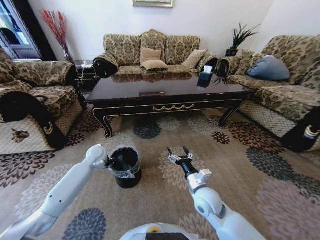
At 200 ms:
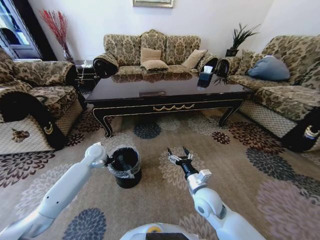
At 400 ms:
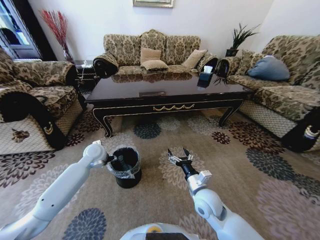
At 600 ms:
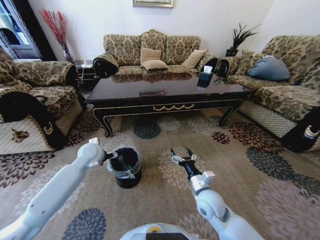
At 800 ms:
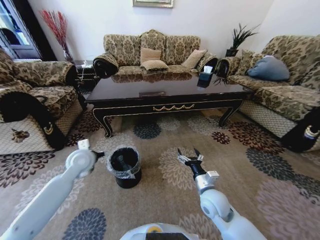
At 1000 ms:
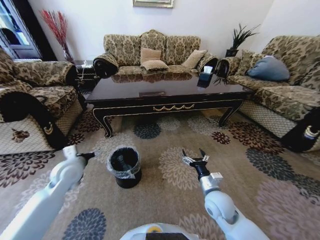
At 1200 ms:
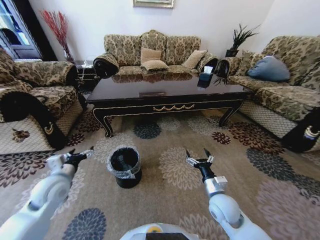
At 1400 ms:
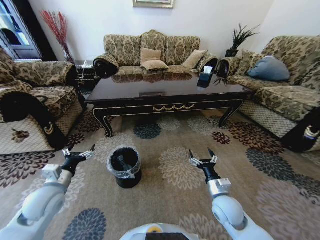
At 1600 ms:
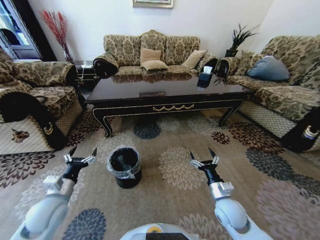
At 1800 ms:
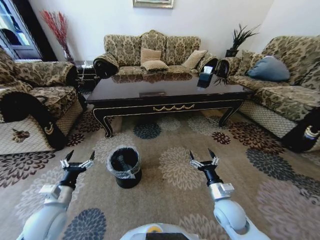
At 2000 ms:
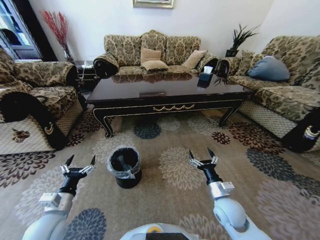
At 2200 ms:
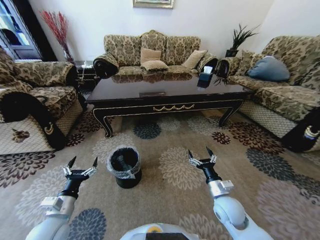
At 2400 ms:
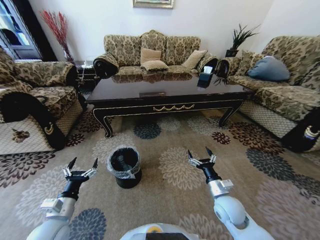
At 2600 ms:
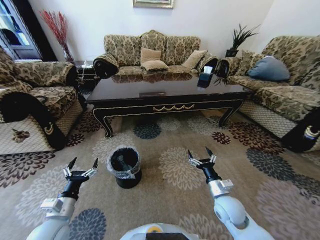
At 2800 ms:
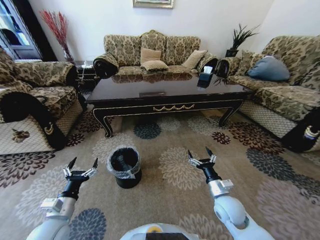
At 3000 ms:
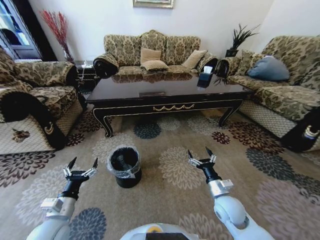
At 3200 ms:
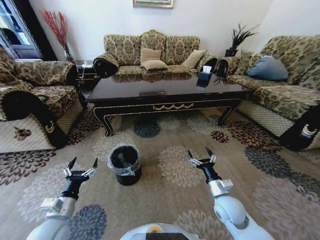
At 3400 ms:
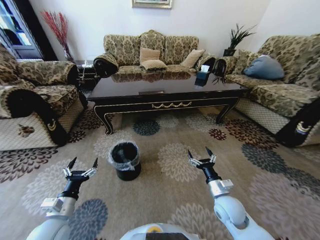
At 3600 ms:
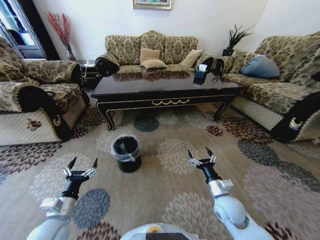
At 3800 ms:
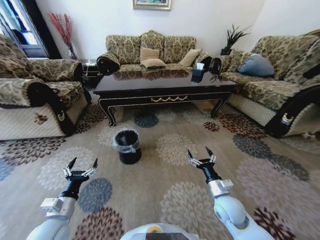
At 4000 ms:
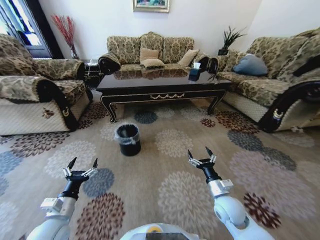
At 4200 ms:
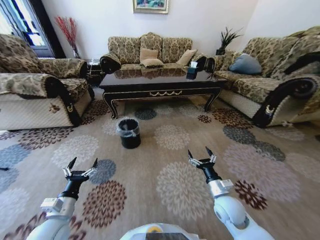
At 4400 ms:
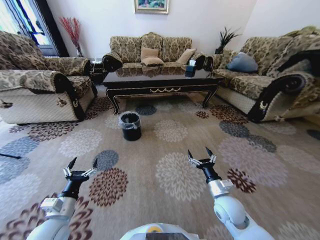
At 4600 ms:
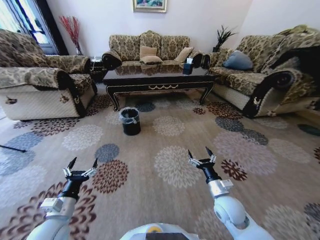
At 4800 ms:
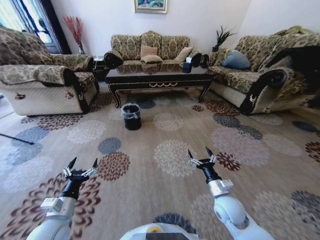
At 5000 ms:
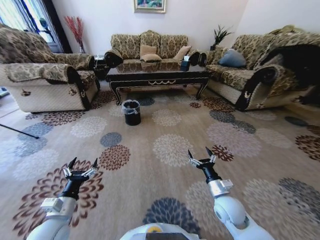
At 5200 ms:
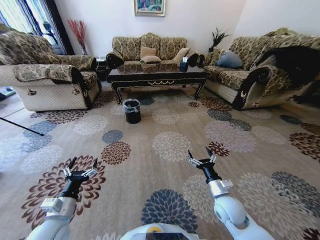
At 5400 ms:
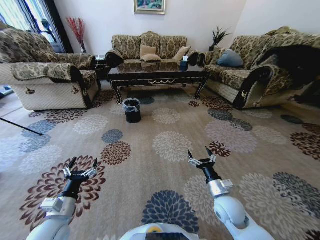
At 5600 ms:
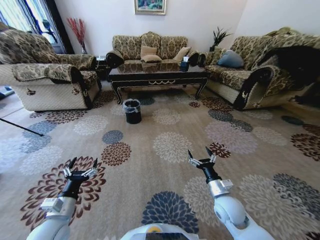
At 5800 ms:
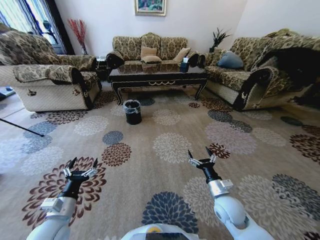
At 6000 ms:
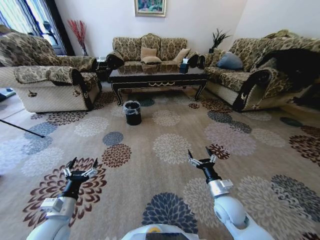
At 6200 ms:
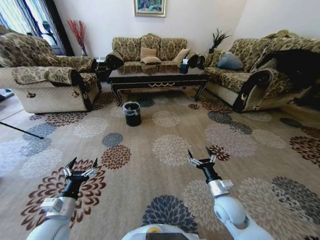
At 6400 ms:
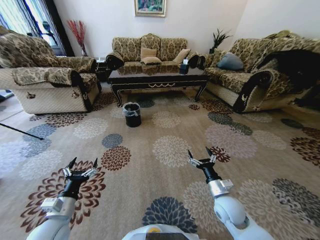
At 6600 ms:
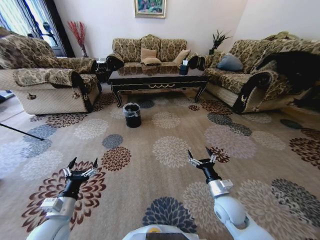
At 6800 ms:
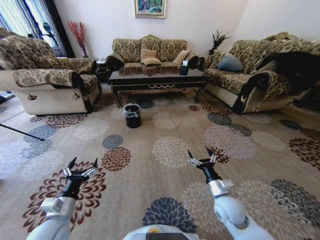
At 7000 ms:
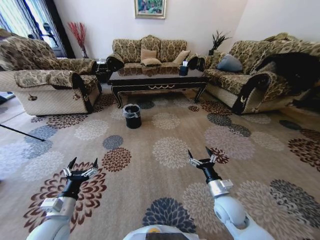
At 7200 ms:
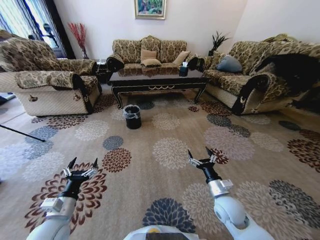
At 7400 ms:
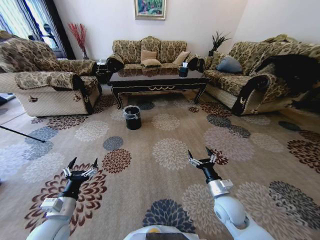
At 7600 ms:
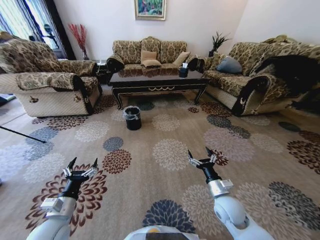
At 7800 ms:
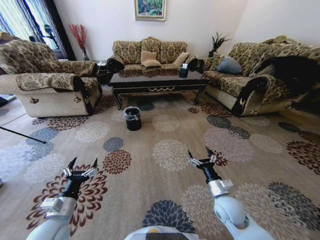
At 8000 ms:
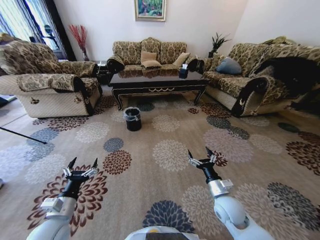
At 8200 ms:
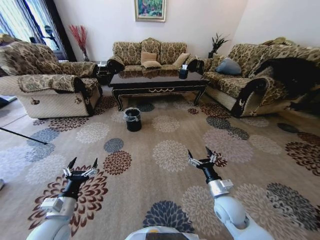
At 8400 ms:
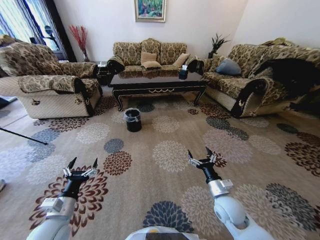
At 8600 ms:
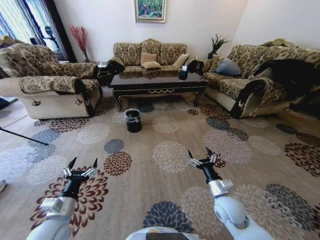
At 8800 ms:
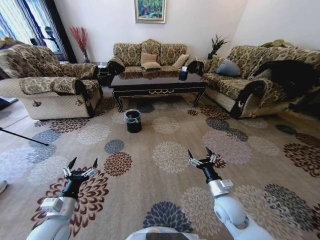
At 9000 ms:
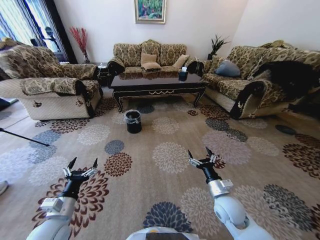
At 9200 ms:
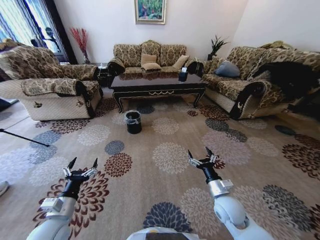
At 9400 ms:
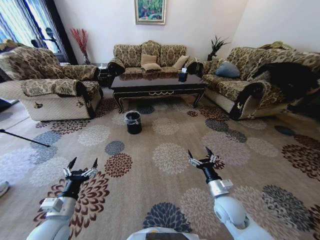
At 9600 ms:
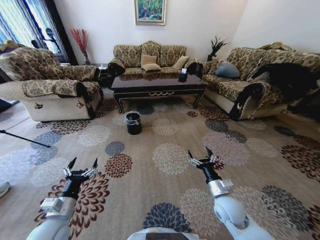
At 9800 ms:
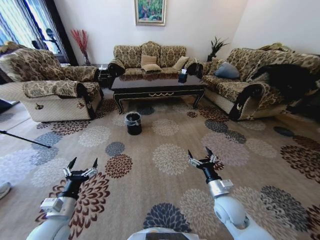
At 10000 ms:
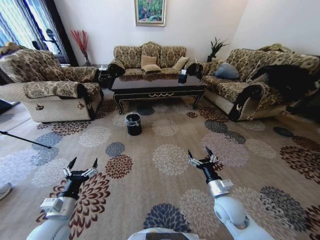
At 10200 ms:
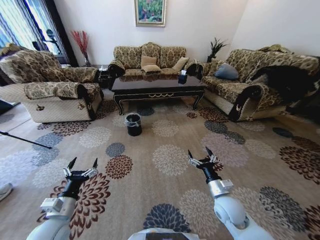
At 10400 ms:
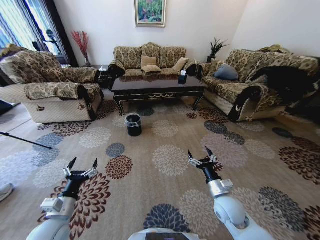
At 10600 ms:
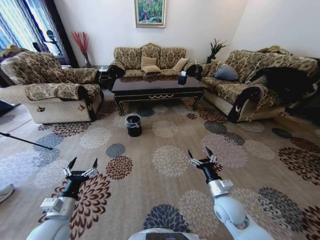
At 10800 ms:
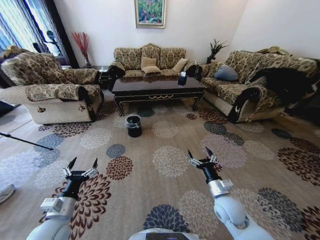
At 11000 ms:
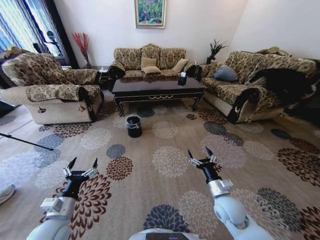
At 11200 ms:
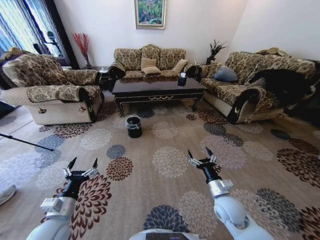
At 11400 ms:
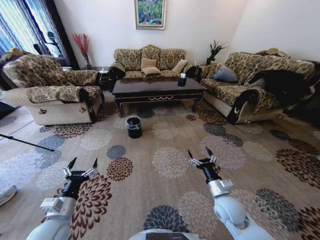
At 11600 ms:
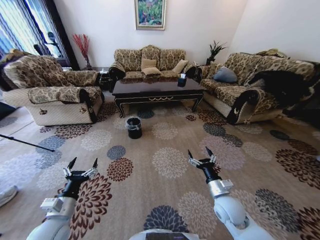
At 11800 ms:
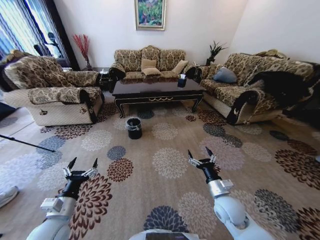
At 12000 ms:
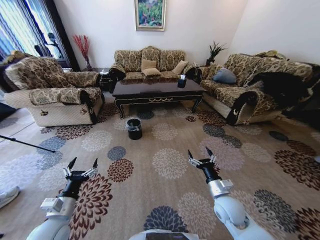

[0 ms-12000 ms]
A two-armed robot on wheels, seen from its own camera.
Task of the whole recording: Move to the front of the table and pick up the trash from the floor, then place it into the trash bin.
0 ms to 1600 ms: The left gripper goes about 25 cm backward, and opens up. Meanwhile the right gripper goes some 10 cm to the right.
1600 ms to 3000 ms: The left gripper heads backward, covering some 5 cm.

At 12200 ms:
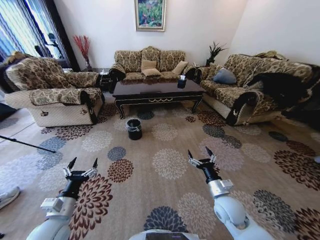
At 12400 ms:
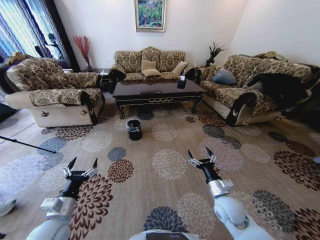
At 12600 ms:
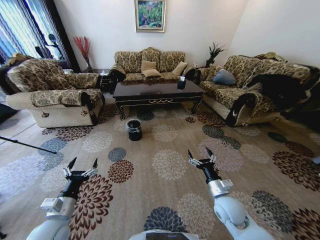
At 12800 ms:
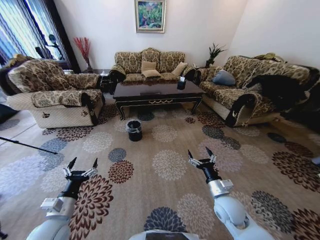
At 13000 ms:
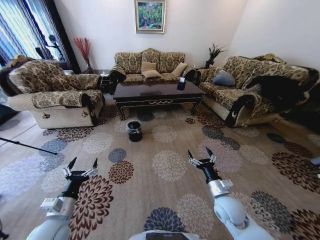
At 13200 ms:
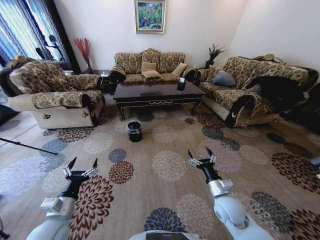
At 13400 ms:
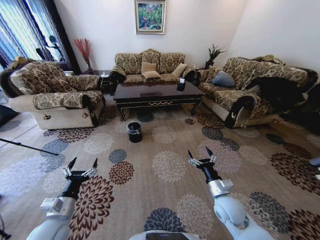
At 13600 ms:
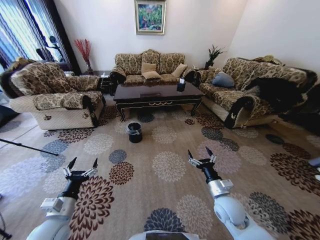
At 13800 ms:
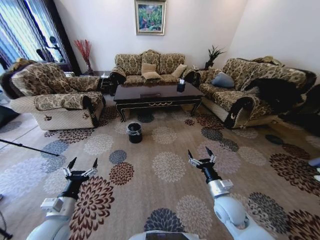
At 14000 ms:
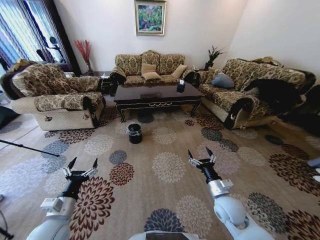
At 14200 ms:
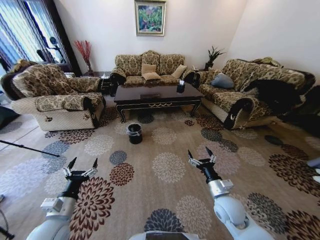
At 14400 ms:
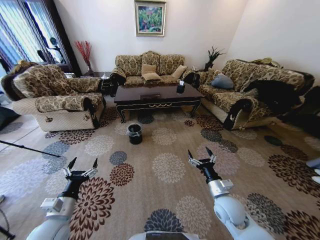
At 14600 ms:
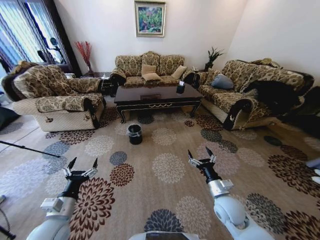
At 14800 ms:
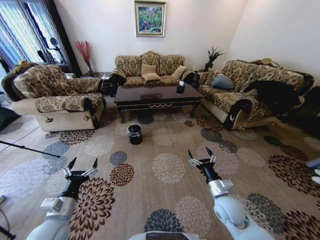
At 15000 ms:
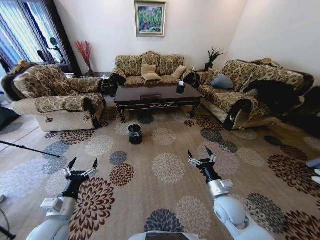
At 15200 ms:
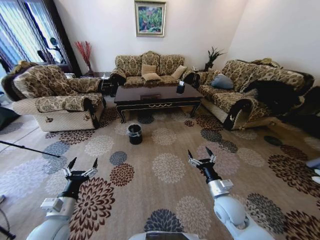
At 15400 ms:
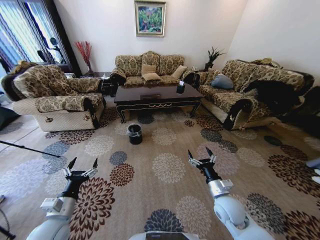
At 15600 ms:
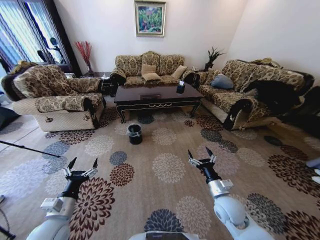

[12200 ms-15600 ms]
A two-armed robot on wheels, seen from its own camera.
Task of the whole recording: Move to the front of the table and pick up the trash from the floor, then place it into the trash bin.
13800 ms to 15600 ms: Both grippers stay about where they are.

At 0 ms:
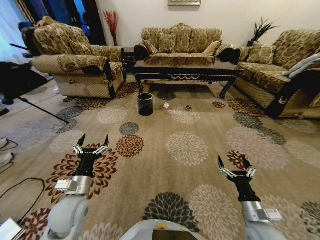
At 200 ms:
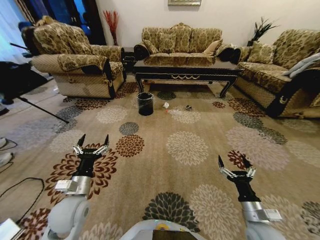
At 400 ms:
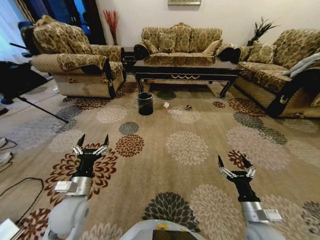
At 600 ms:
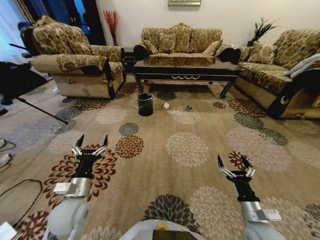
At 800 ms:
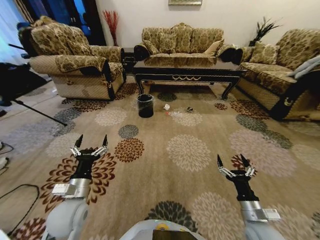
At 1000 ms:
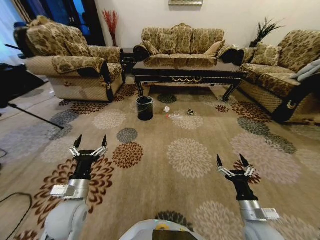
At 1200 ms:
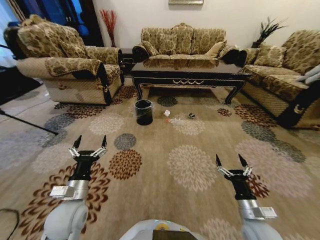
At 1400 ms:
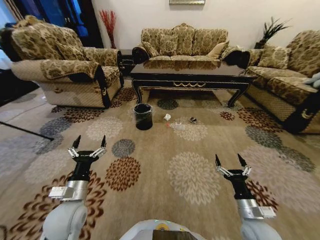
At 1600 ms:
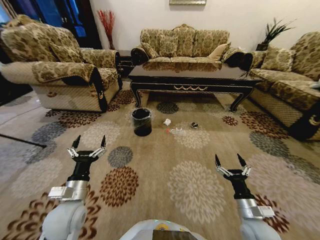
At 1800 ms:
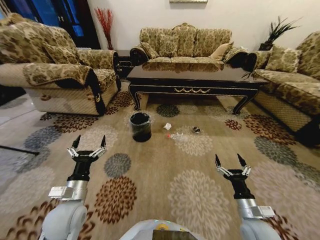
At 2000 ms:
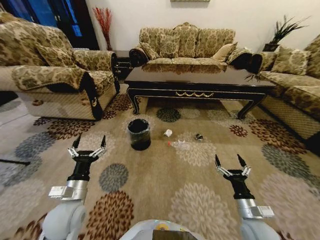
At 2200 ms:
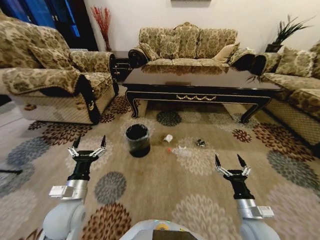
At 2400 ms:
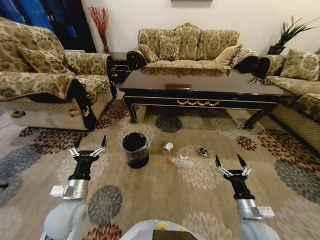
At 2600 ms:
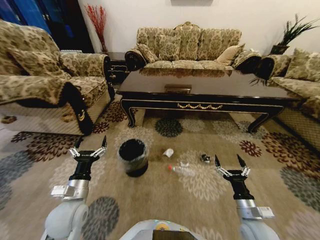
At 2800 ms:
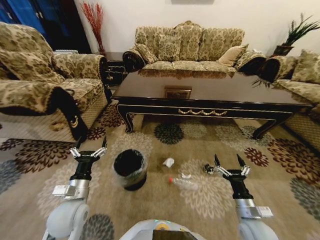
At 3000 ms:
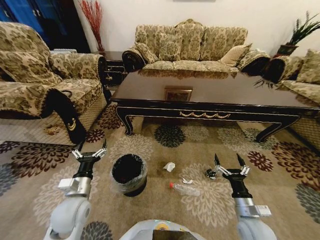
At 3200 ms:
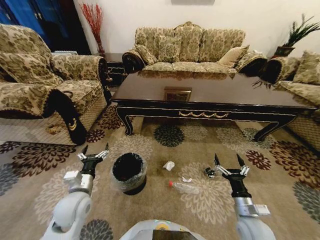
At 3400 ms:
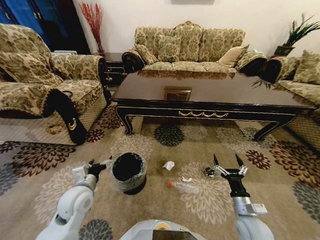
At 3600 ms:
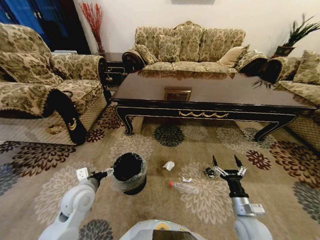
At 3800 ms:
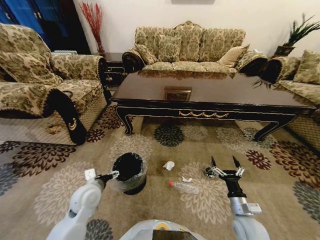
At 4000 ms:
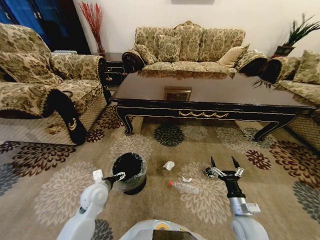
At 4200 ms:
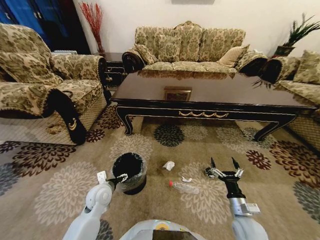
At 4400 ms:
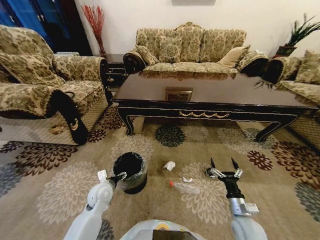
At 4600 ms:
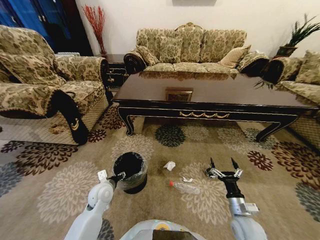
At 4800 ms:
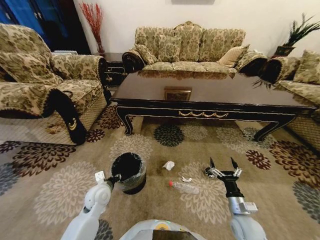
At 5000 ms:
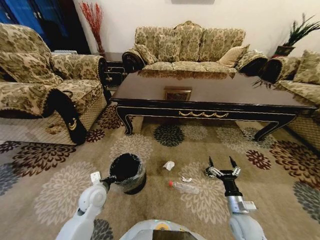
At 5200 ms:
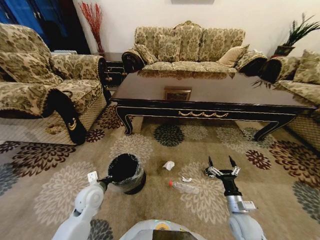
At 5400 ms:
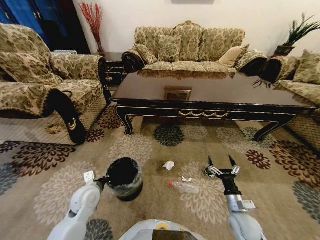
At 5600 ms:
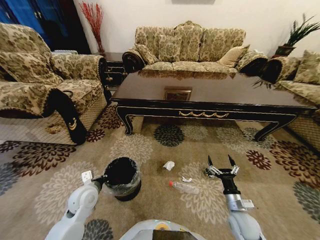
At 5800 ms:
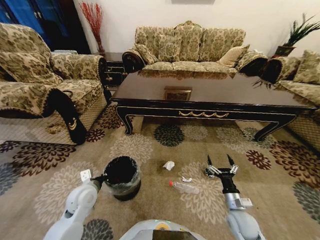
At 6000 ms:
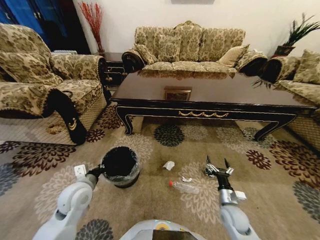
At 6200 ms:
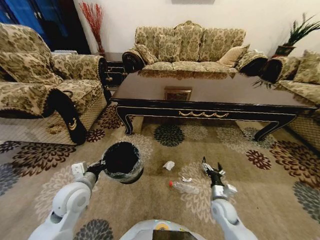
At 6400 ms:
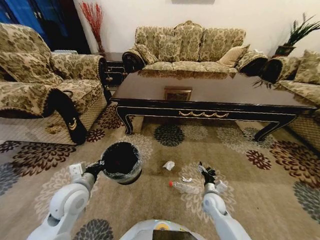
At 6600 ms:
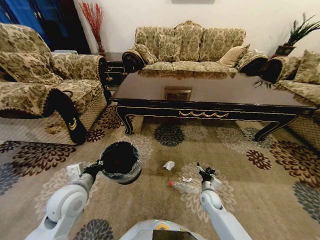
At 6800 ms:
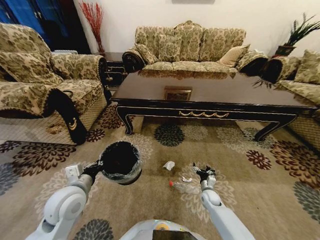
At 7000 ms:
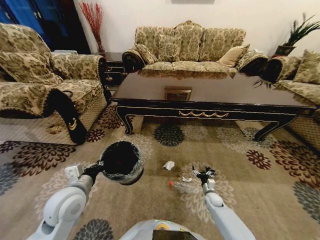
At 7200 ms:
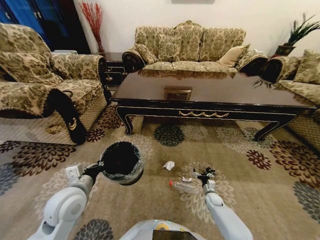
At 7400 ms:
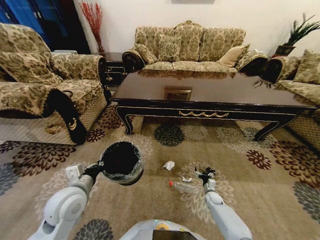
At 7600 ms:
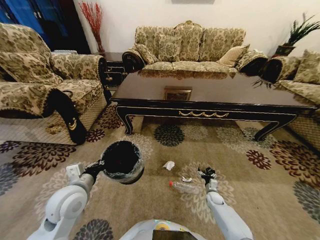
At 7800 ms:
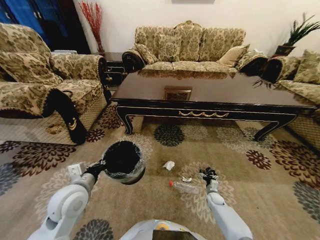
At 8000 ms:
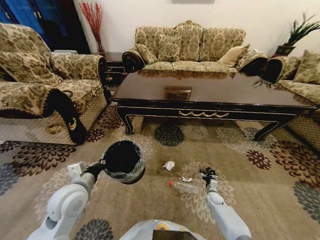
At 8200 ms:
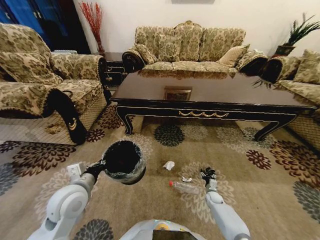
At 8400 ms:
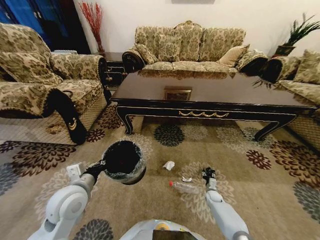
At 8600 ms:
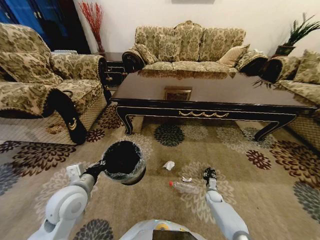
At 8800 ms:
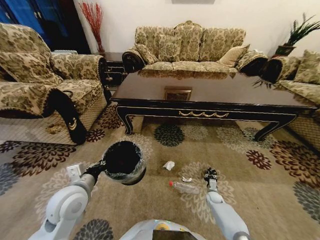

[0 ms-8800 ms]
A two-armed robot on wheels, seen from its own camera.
Task of the whole recording: Move to the front of the table and pick up the trash from the floor, then place it into the trash bin.
3000 ms to 4400 ms: The left gripper moves downward and forward, approximately 10 cm.
4400 ms to 5800 ms: The left gripper is displaced upward by some 5 cm, and closes its fingers.
5800 ms to 7400 ms: The right gripper travels downward and forward by roughly 25 cm; the left gripper is displaced upward by about 10 cm.
7400 ms to 8800 ms: The right gripper closes its fingers.